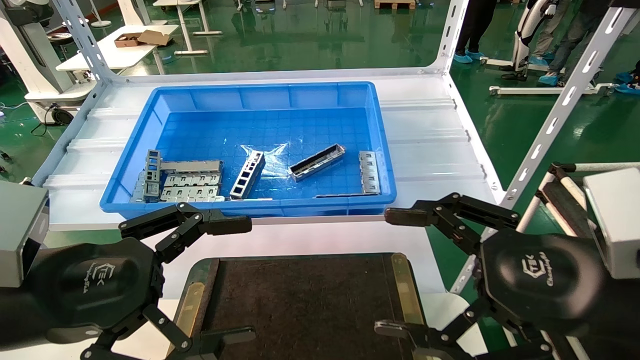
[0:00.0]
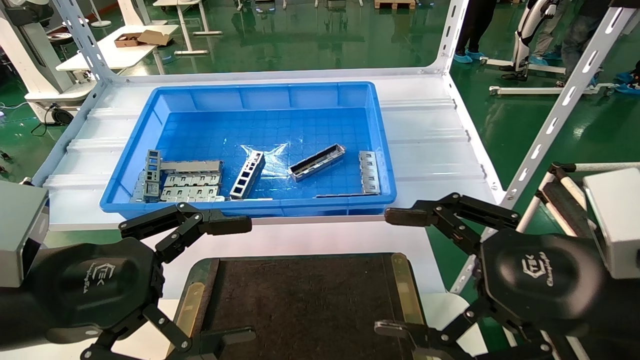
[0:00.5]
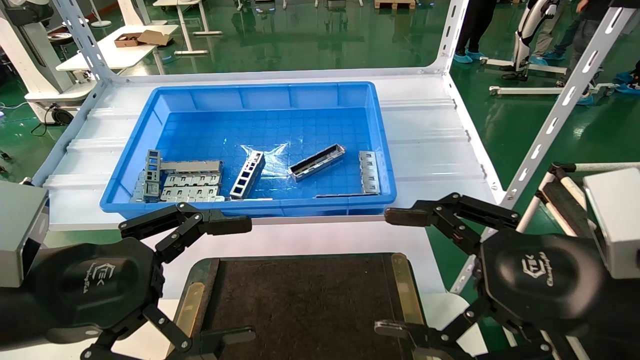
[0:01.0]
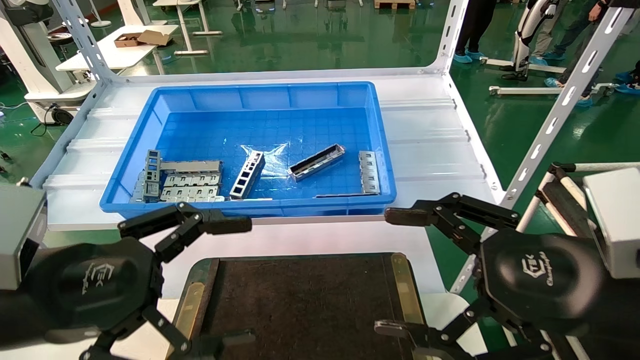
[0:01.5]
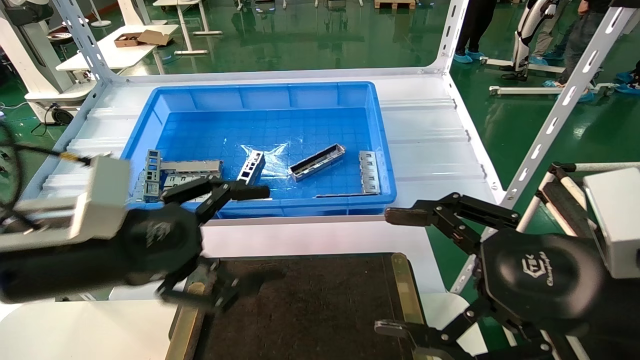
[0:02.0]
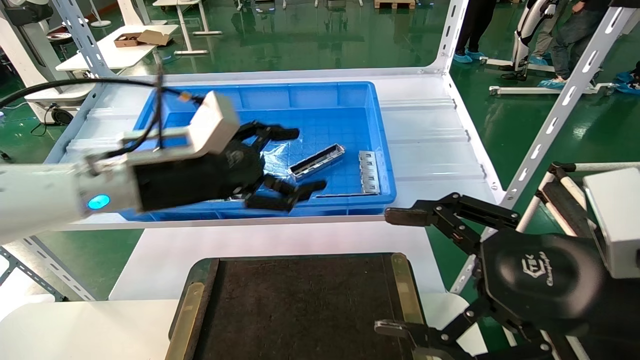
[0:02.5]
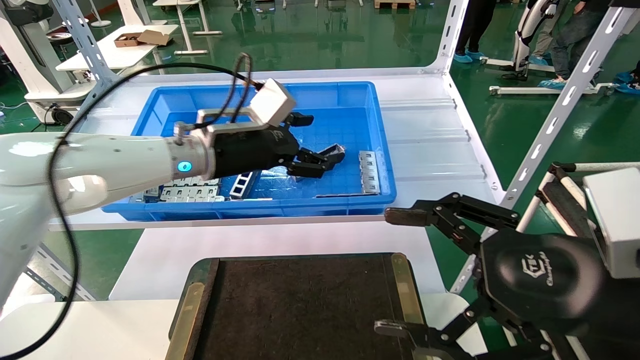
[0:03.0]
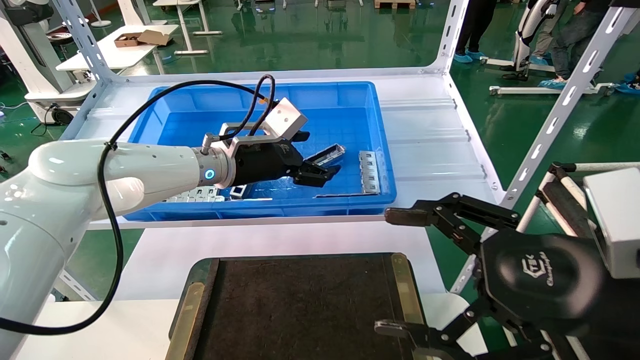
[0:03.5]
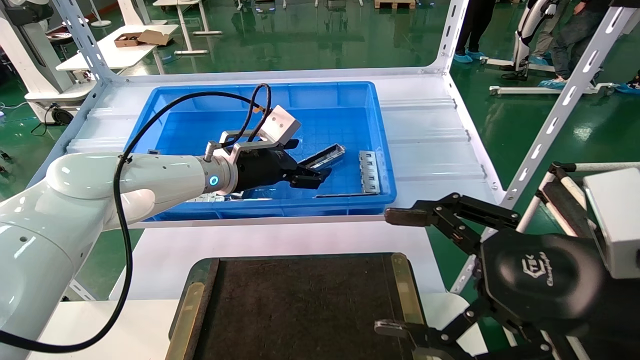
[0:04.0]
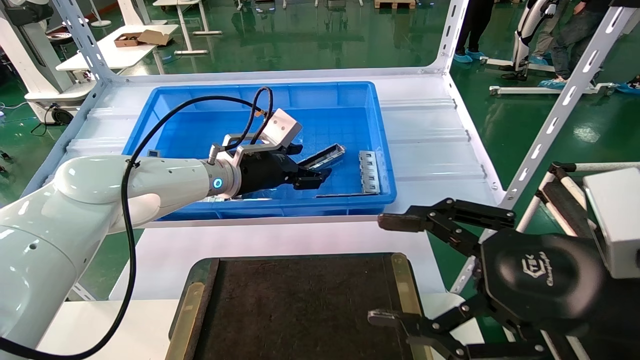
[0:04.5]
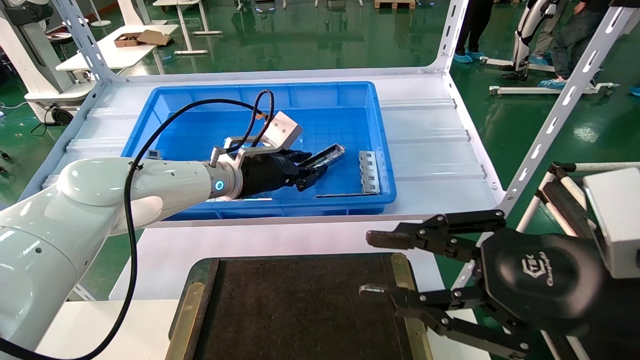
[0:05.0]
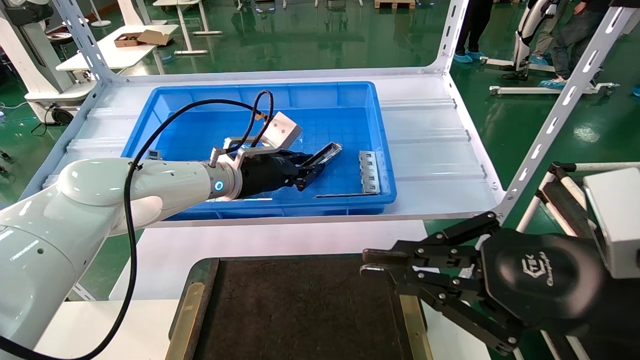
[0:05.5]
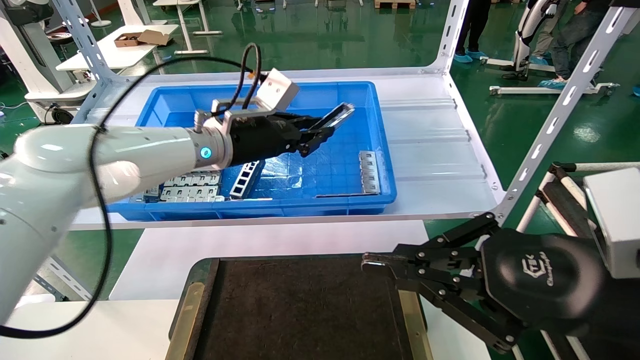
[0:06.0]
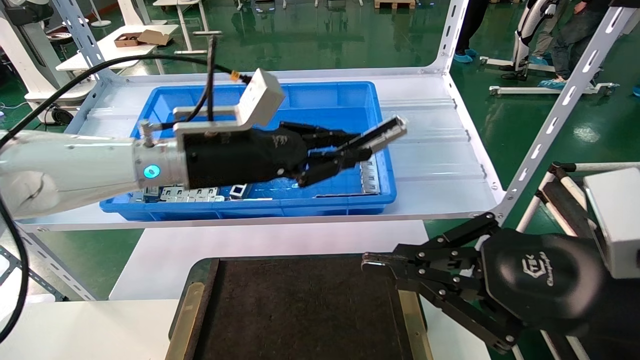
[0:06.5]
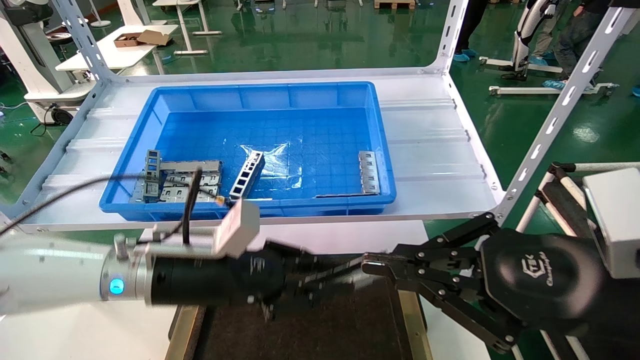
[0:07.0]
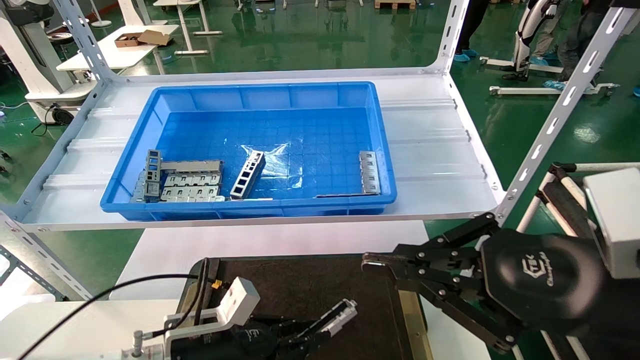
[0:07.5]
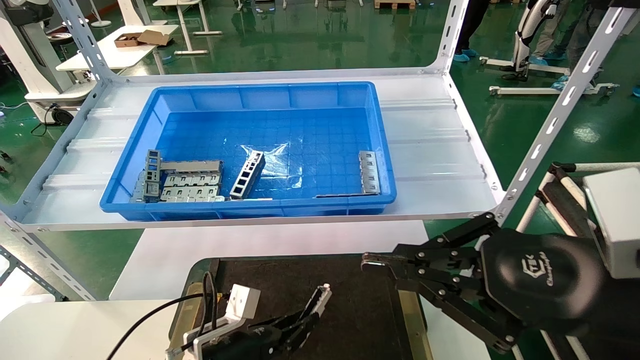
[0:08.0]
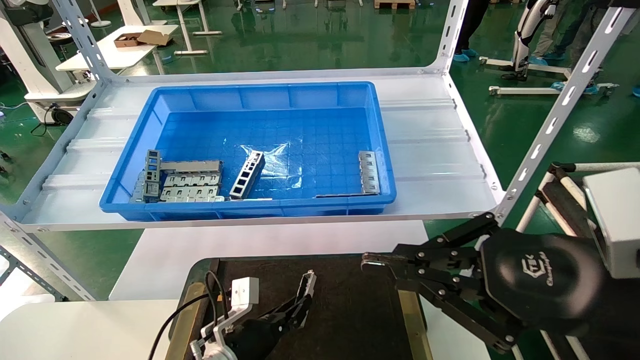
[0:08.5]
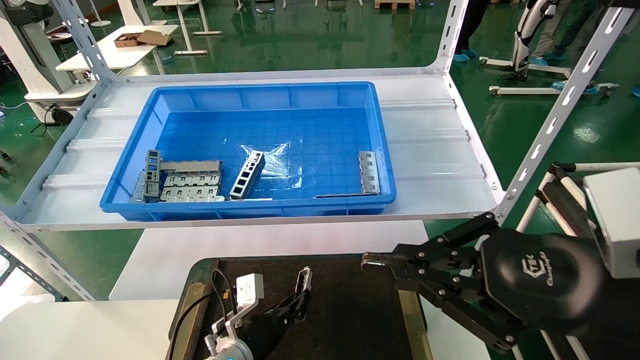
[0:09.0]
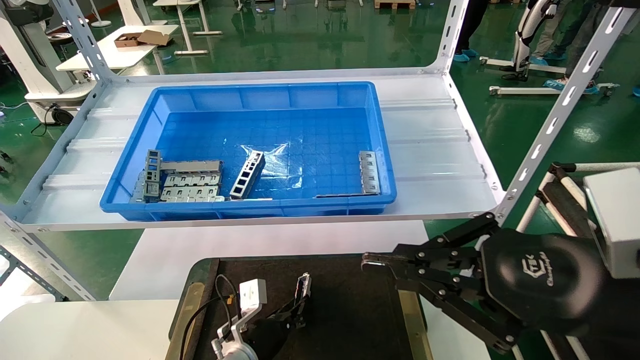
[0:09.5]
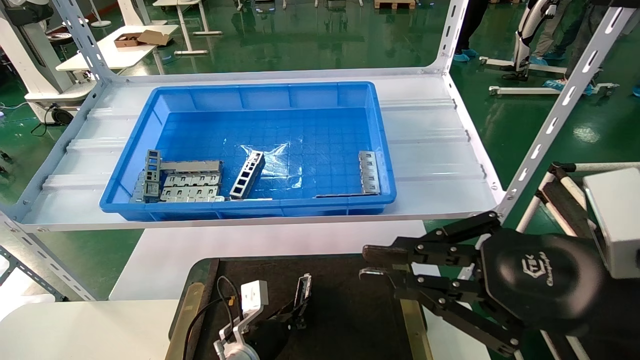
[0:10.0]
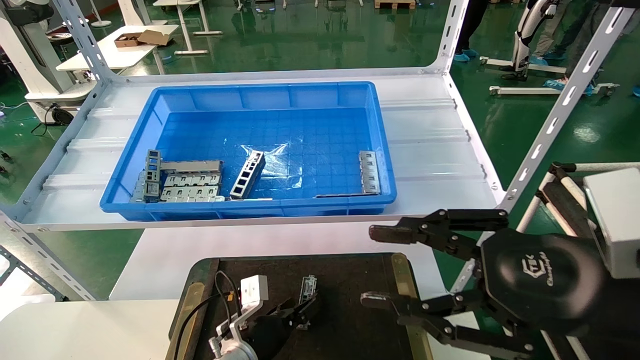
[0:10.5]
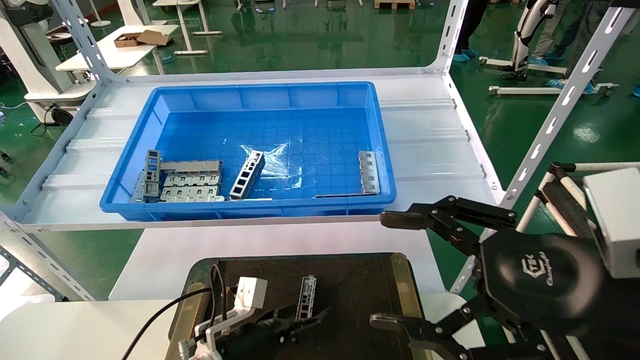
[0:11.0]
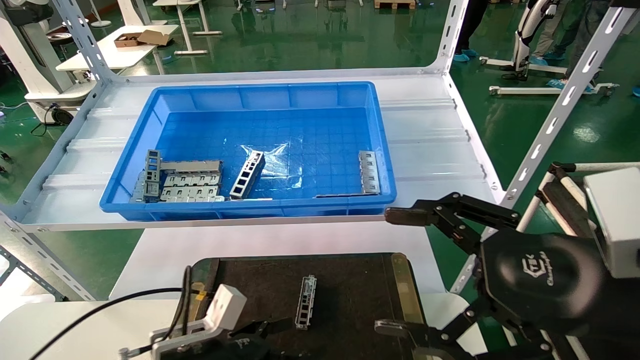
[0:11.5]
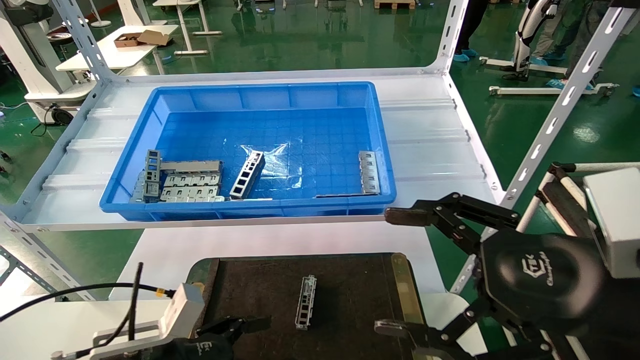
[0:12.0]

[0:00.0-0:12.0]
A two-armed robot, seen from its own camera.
Task of the whole recording: Grasp the part with one hand and place it on the black container.
Step, 0:02.0 to 0:05.5: Pick up the front USB bracket from the feeding area.
Step, 0:06.0 to 0:10.0: Place the front USB bracket into the box.
0:00.0 to 0:02.0: The left gripper moves forward, roughly 5 cm.
0:02.0 to 0:04.0: The left gripper is displaced forward and to the right by some 25 cm.
0:04.0 to 0:06.0: The right gripper closes its fingers. Meanwhile the left gripper changes place by some 5 cm, and closes up.
0:06.0 to 0:08.0: The left gripper goes some 30 cm downward.
0:08.0 to 0:10.0: The left gripper goes roughly 5 cm forward.
0:10.0 to 0:12.0: The right gripper opens; the left gripper heads backward, to the left and upward, covering approximately 20 cm, and opens its fingers.
